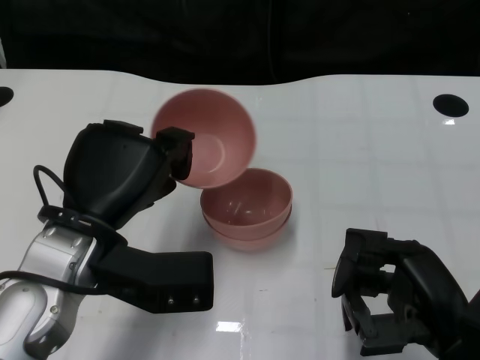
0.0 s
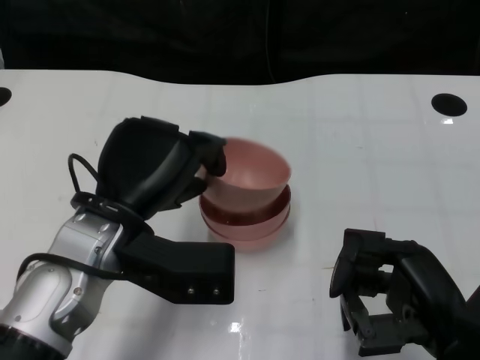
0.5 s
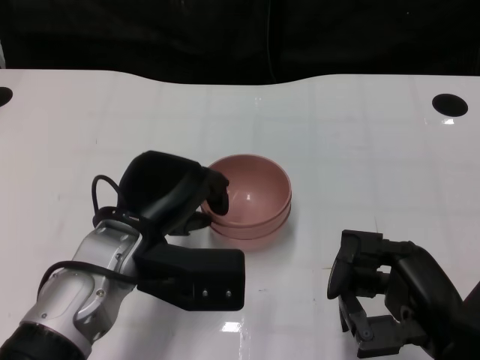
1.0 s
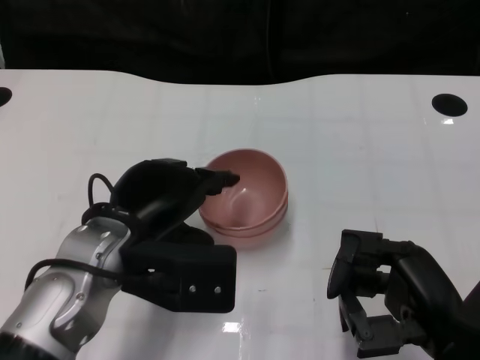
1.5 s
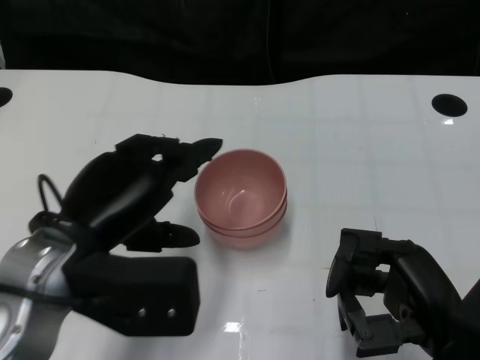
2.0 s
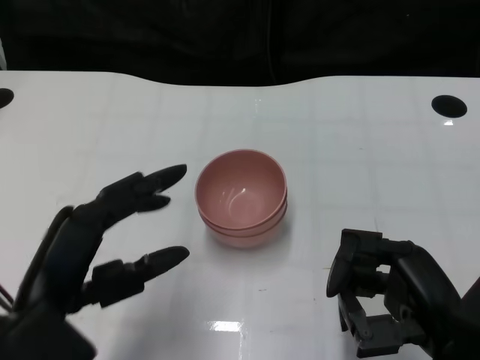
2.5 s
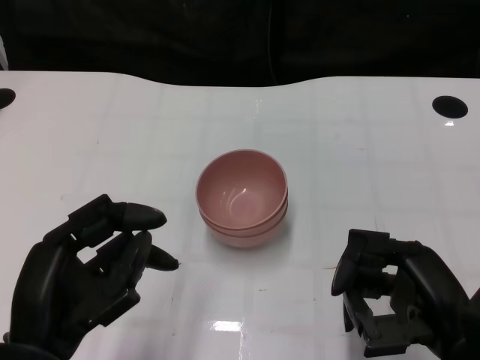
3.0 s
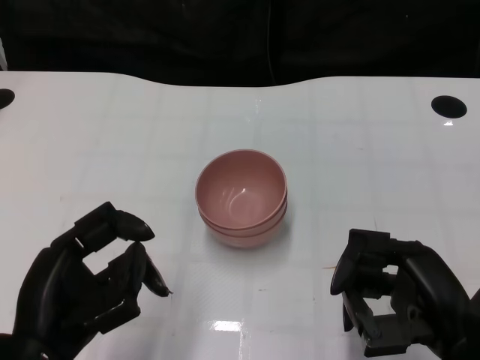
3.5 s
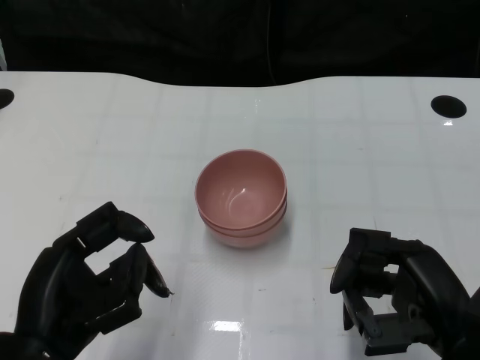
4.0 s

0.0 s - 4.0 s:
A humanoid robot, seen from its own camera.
Task of the whole recording: Pick up the bowl on one side of the table and place it on top of the middle bowl, then pick up the bowl on the other side of the table and place it on top of the middle bowls.
Step, 0.0 s - 1.5 s: Place the bowl on the left onto the bowl in the middle with left gripper.
2.0 s - 4.0 s: The left hand shifts roughly 10 cm backward.

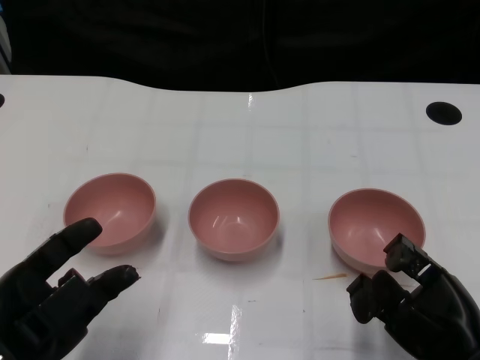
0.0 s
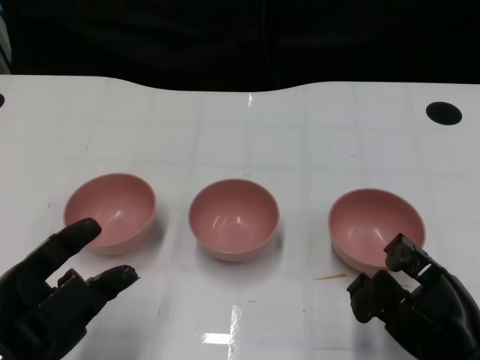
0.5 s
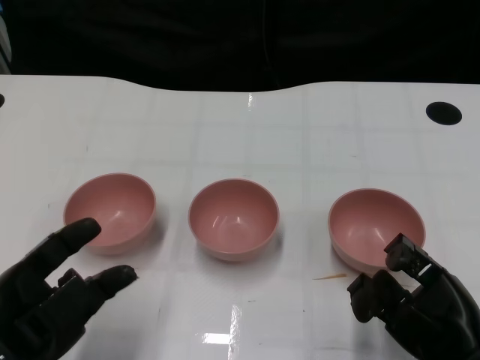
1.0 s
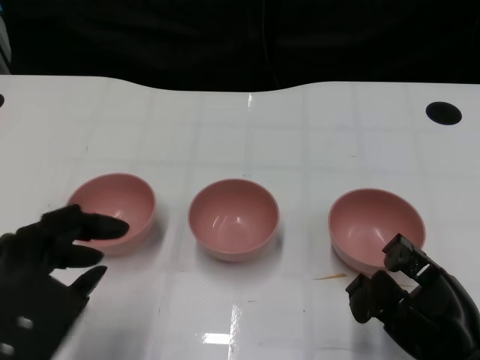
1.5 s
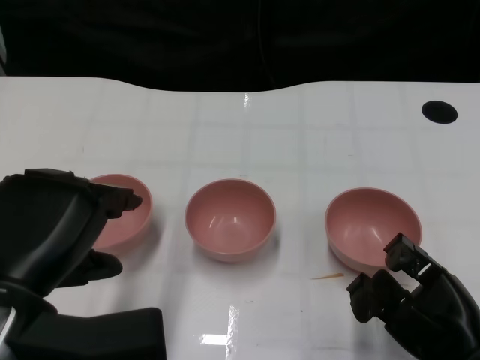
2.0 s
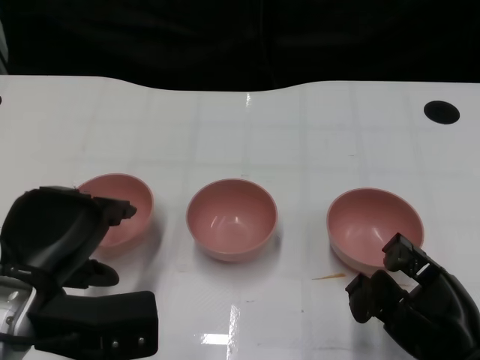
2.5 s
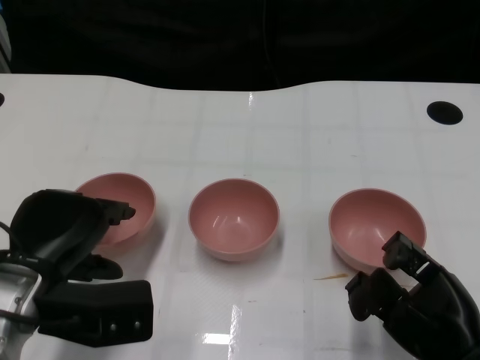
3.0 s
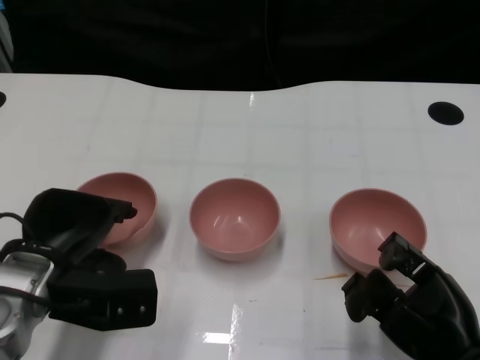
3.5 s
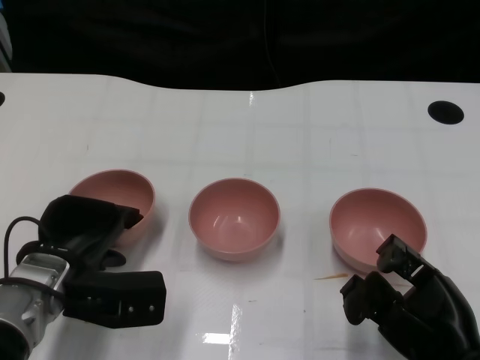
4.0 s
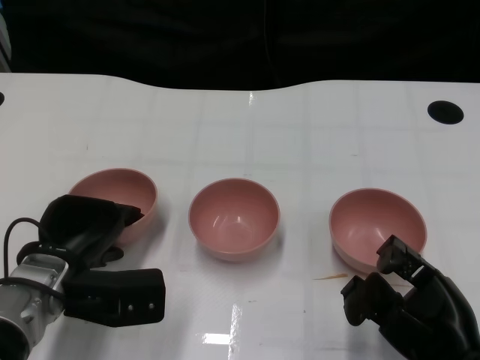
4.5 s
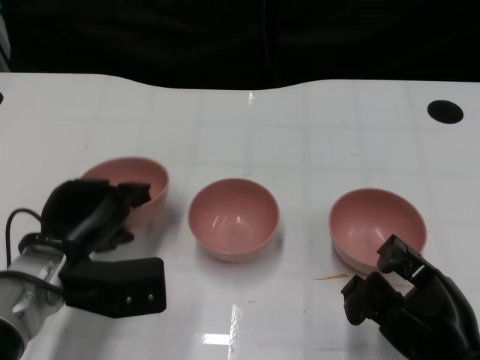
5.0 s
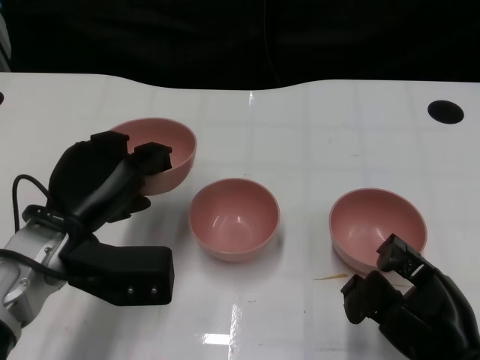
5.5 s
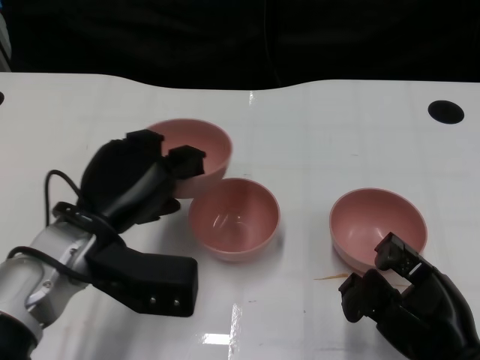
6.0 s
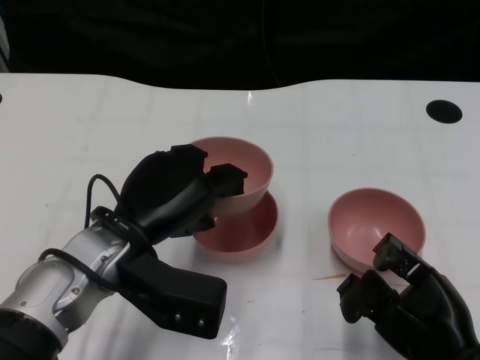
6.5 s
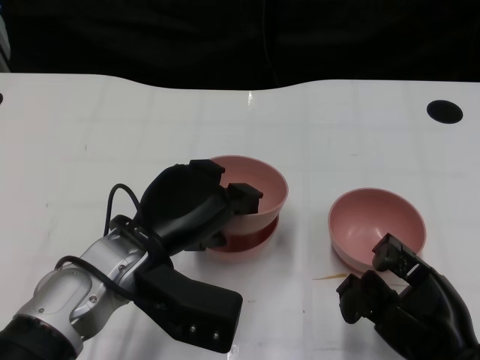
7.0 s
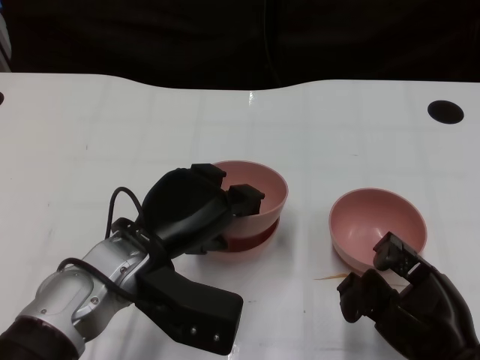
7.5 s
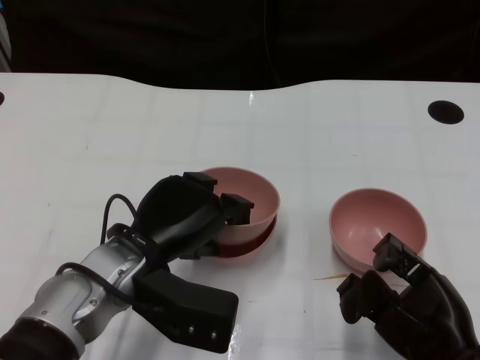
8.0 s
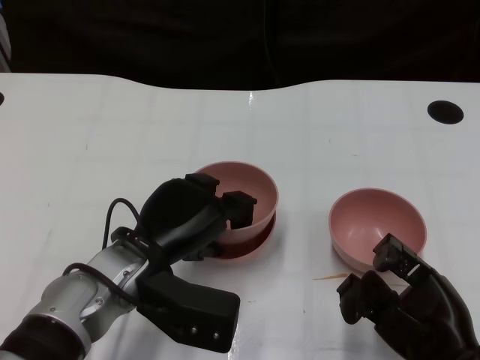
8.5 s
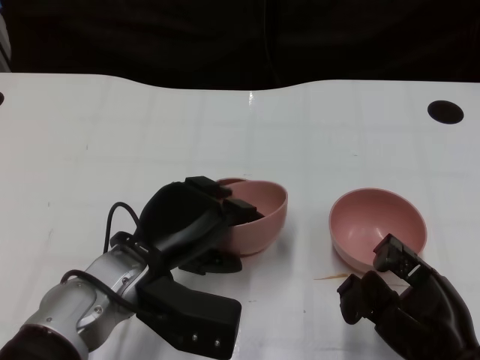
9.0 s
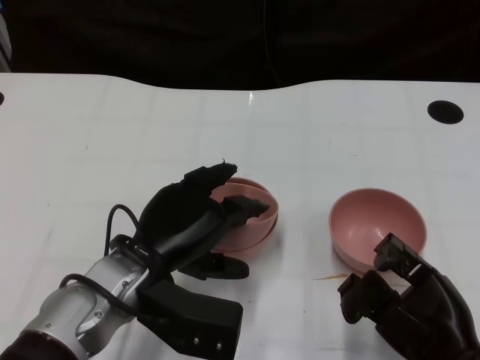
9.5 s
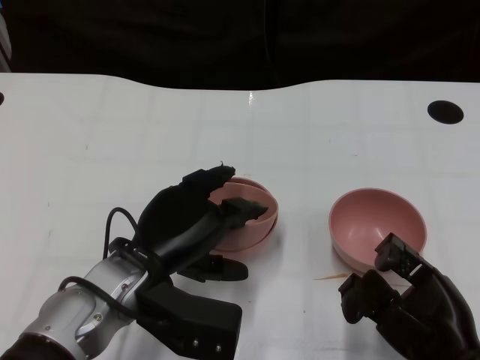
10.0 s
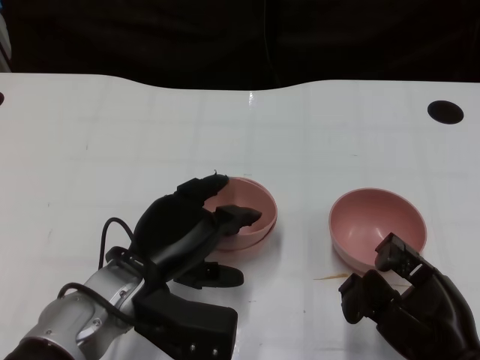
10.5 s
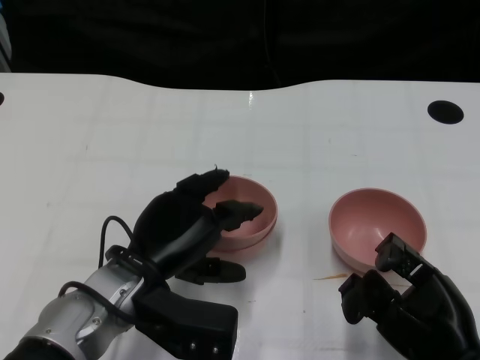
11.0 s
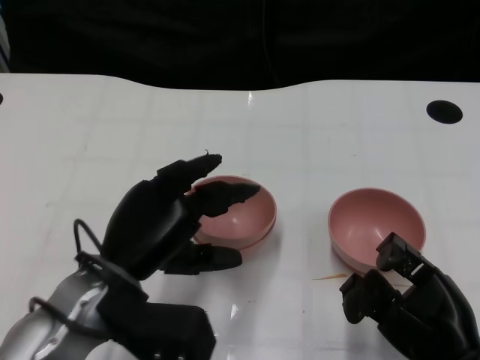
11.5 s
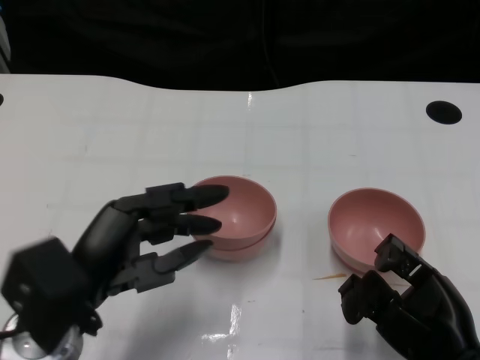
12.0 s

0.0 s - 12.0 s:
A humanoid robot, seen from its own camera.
Task of the whole recording: Pick up the bowl on one side of the table and place it on top of the middle bowl, then pick up the bowl on the other side of the table and place it on top of the middle bowls.
Step, 1.5 s - 4.5 s: Grasp the bowl on the left with the left gripper.
Step, 5.5 s - 11.0 s: Place the bowl on the left onto the bowl in the middle with left gripper.
2.0 s - 4.0 s: The left hand heads downward and forward, covering roughly 15 cm.
4.0 s - 6.0 s: The left hand is displaced upward by approximately 5 cm.
8.0 s - 10.0 s: Both hands stay put.
10.0 s - 12.0 s: The left hand shifts about 10 cm to the left and backward.

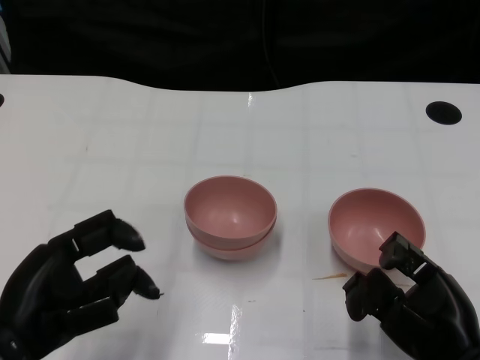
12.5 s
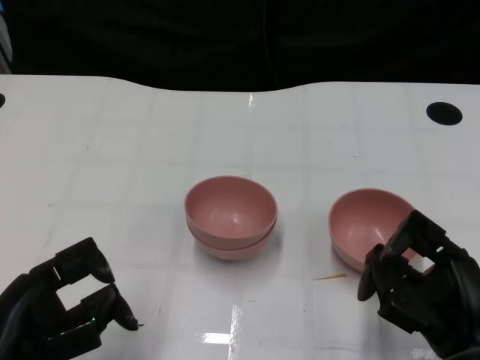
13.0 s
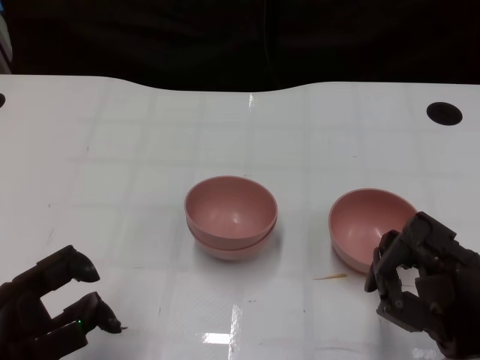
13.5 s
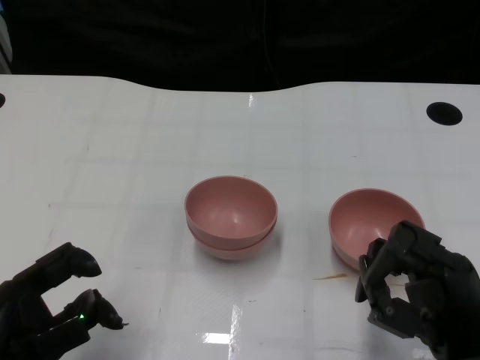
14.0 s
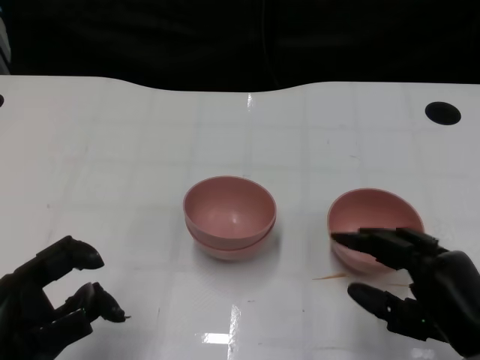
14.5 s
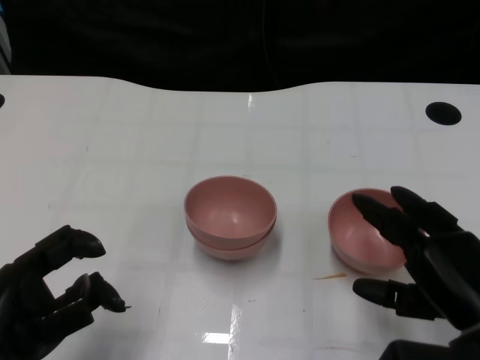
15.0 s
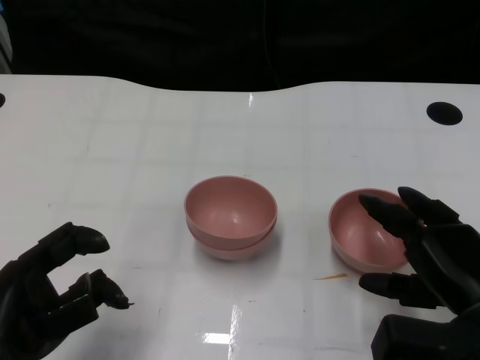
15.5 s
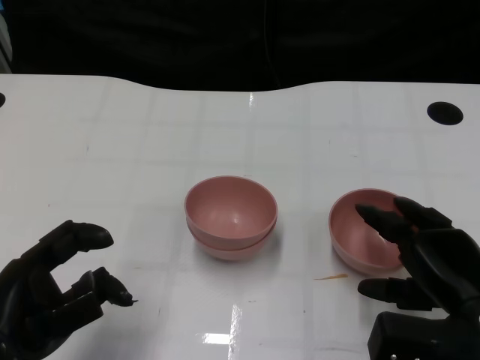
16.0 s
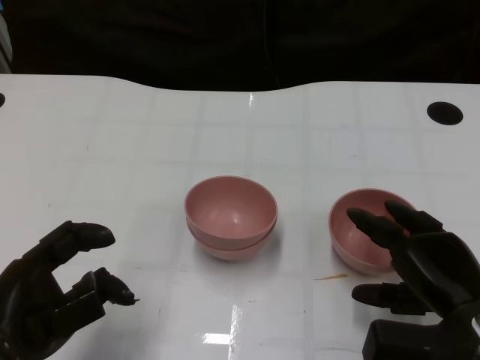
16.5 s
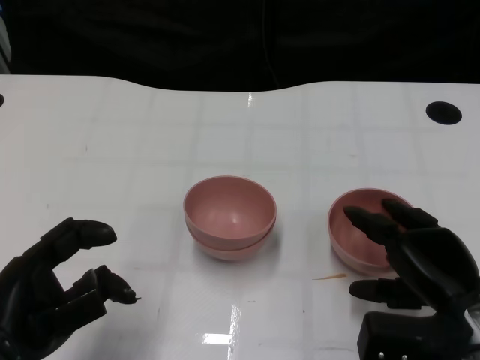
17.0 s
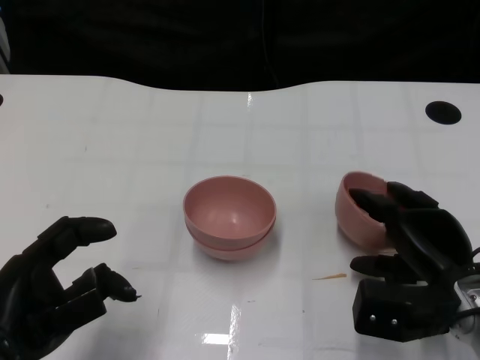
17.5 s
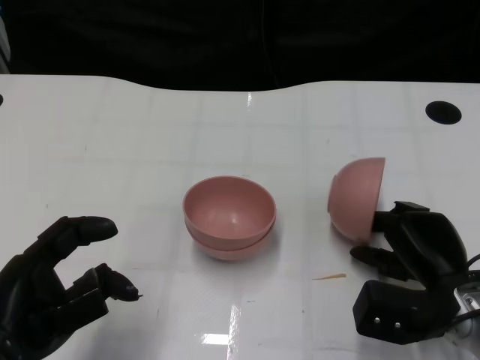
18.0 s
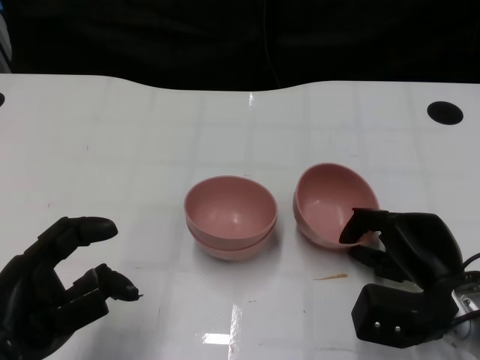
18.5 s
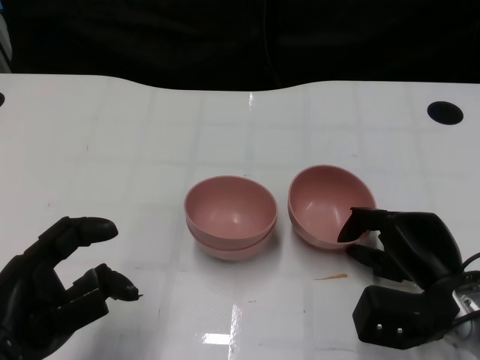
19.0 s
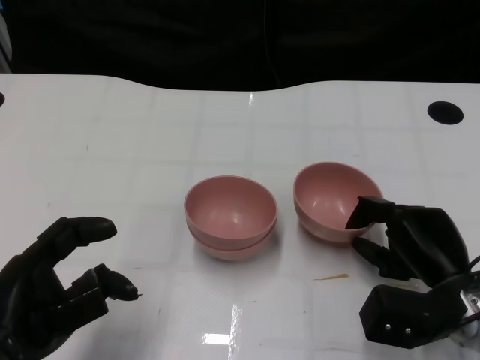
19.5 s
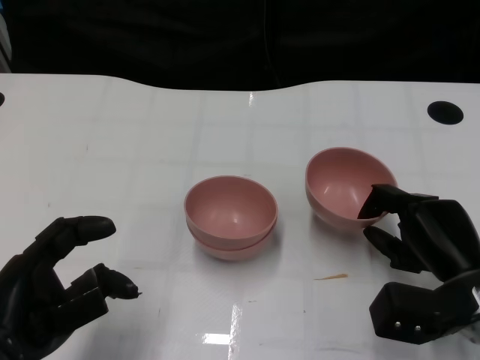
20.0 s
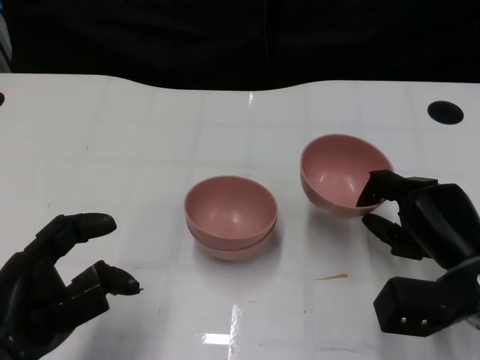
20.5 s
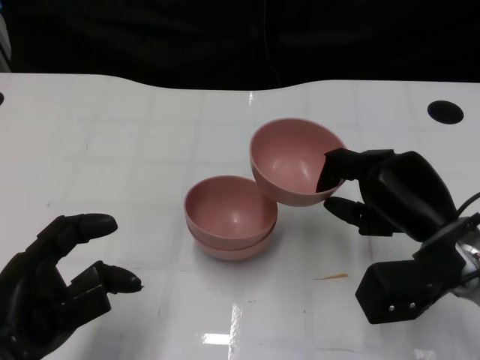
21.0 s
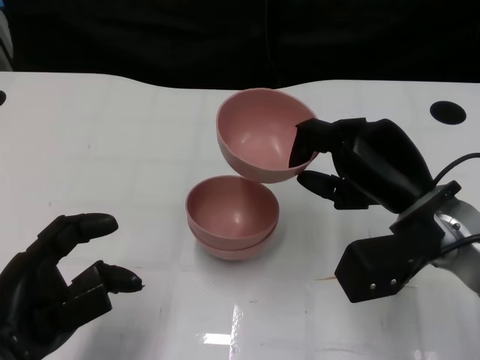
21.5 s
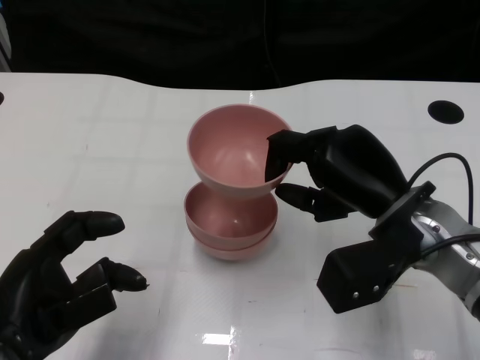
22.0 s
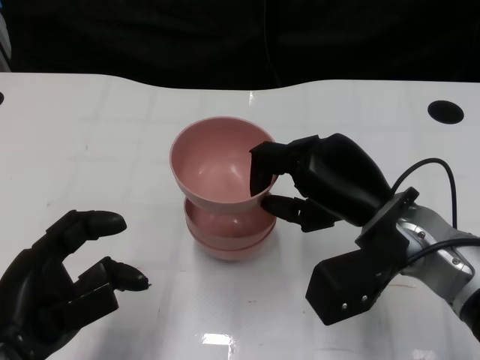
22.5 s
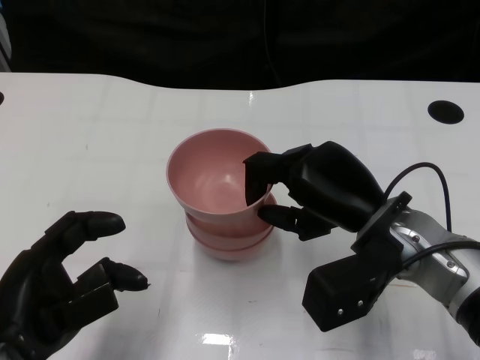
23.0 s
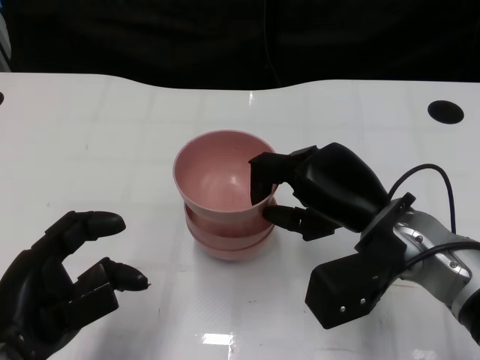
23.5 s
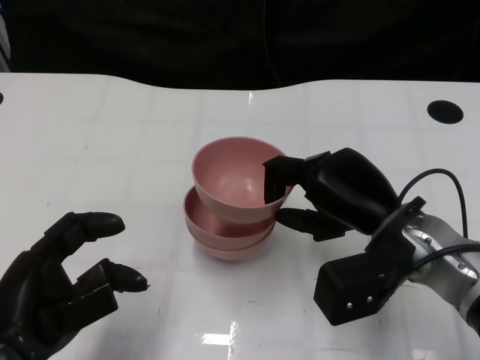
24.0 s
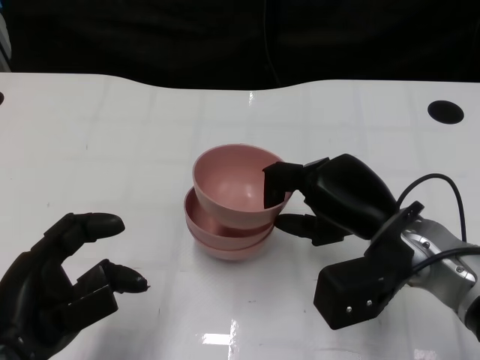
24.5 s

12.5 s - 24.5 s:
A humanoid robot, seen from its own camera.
Task of the whole recording: Pick up the bowl on one side of the table and place it on top of the middle bowl, then pick up the bowl on the other side of the table and place it on top of the middle bowls.
Step, 12.5 s - 20.0 s: Grasp the bowl on the right with the right gripper.
16.5 s - 18.5 s: The right hand changes place by roughly 5 cm.
18.5 s - 20.5 s: The hands stay close to where they were, moving slightly.
20.5 s - 22.5 s: The right hand goes roughly 10 cm to the left and upward.
22.5 s - 24.5 s: The hands make only small movements.
